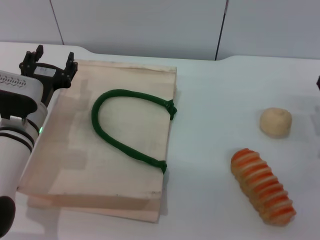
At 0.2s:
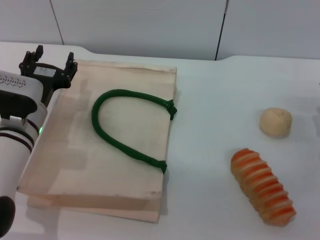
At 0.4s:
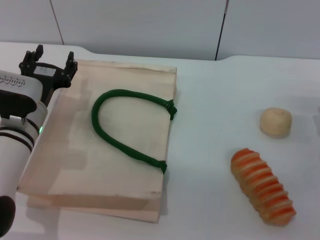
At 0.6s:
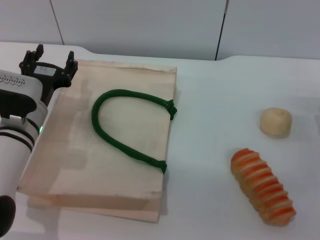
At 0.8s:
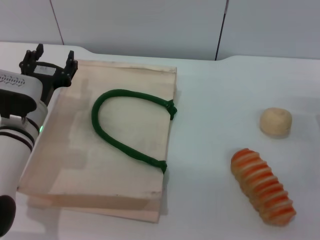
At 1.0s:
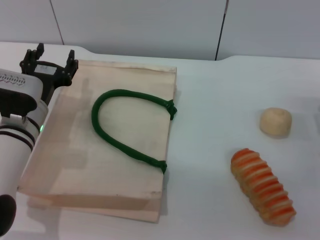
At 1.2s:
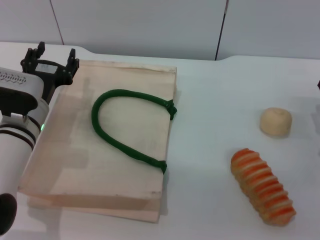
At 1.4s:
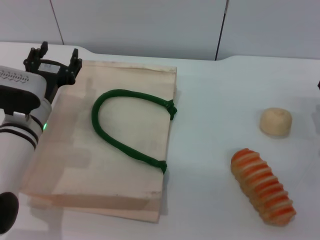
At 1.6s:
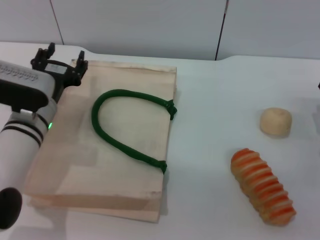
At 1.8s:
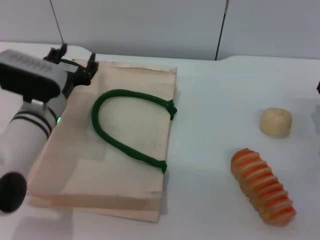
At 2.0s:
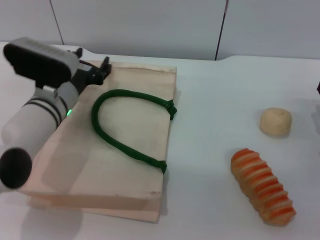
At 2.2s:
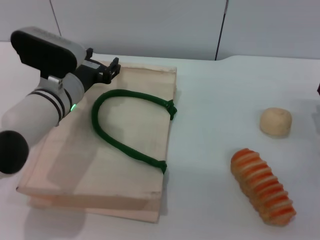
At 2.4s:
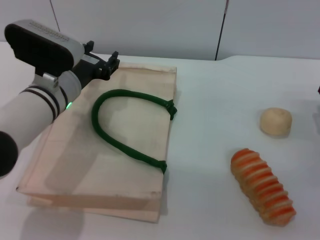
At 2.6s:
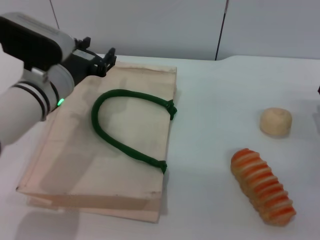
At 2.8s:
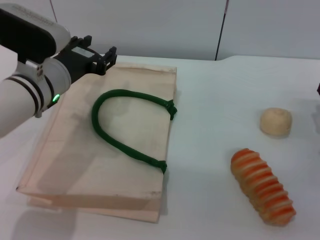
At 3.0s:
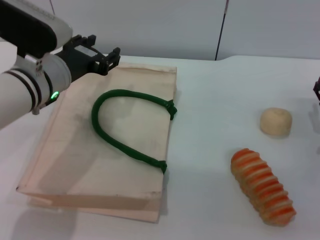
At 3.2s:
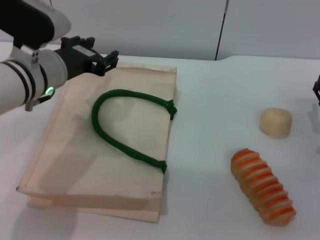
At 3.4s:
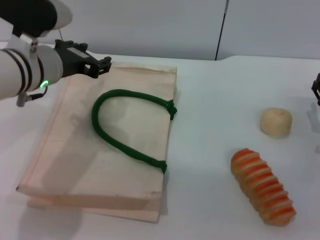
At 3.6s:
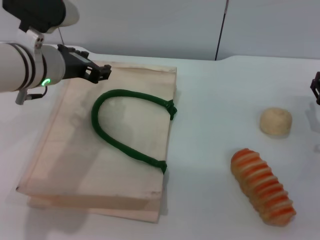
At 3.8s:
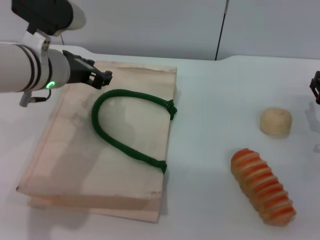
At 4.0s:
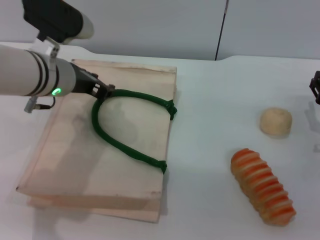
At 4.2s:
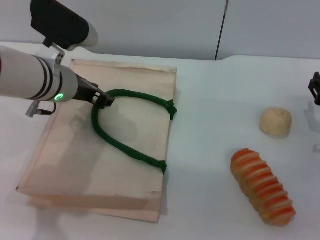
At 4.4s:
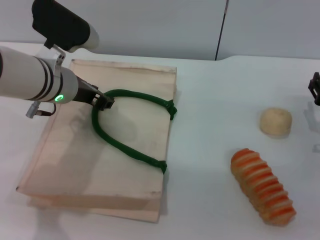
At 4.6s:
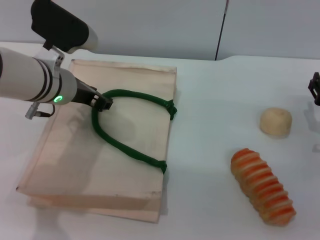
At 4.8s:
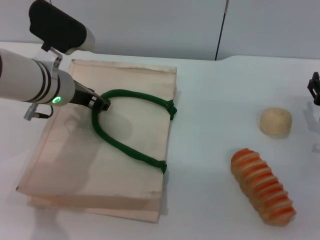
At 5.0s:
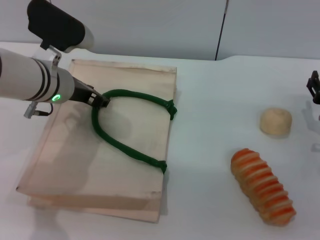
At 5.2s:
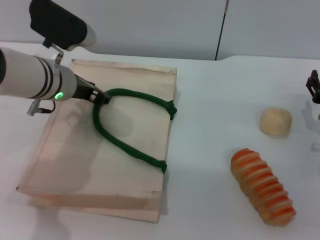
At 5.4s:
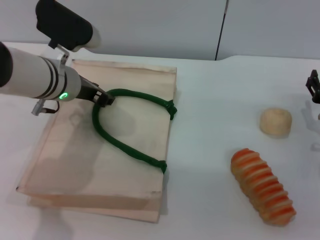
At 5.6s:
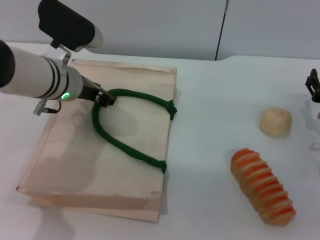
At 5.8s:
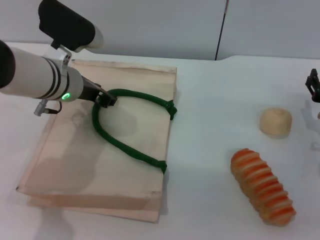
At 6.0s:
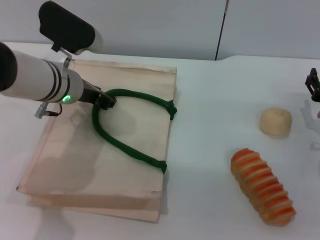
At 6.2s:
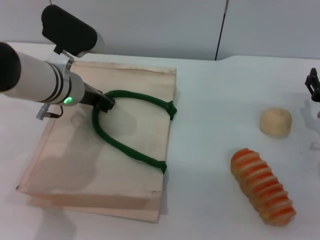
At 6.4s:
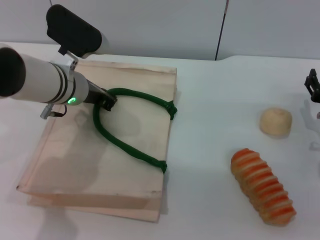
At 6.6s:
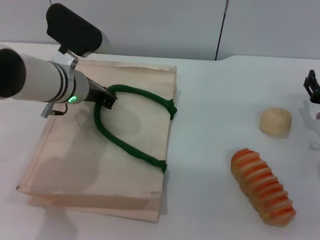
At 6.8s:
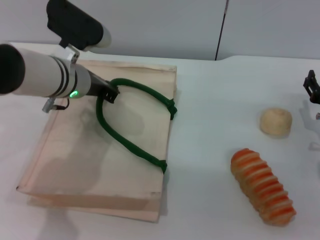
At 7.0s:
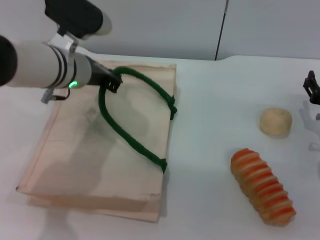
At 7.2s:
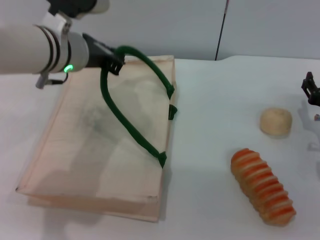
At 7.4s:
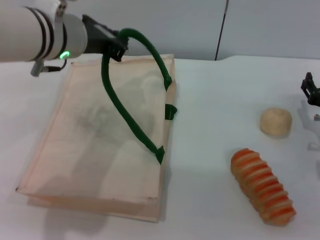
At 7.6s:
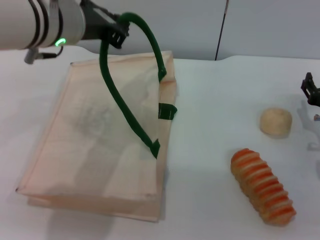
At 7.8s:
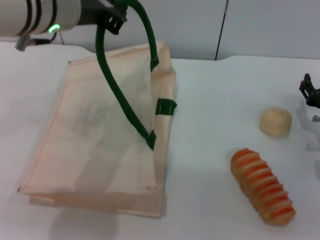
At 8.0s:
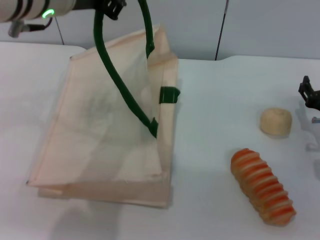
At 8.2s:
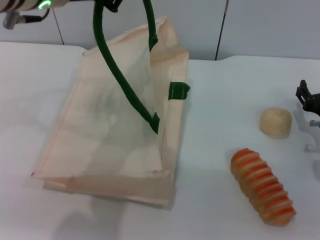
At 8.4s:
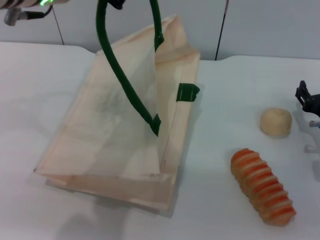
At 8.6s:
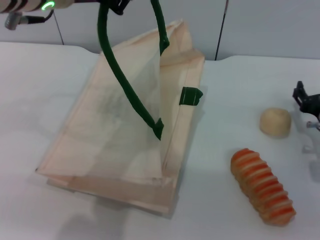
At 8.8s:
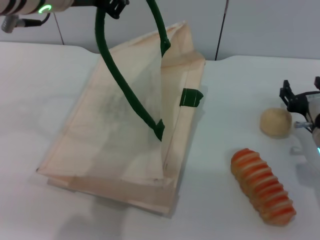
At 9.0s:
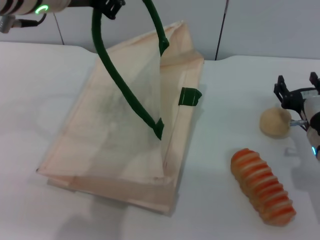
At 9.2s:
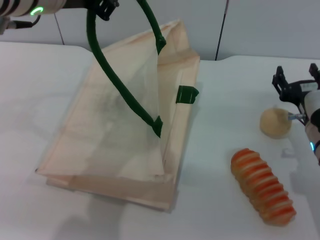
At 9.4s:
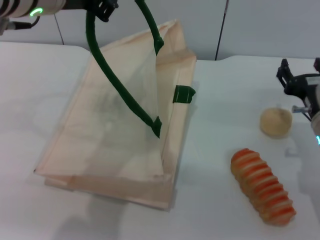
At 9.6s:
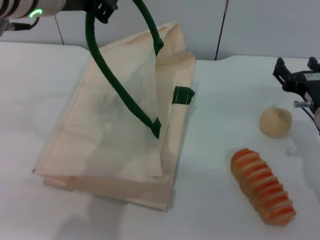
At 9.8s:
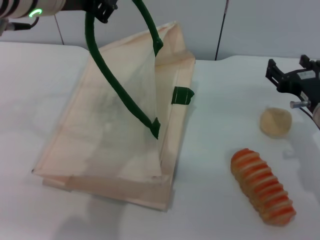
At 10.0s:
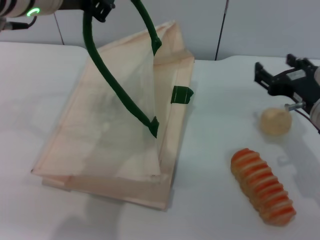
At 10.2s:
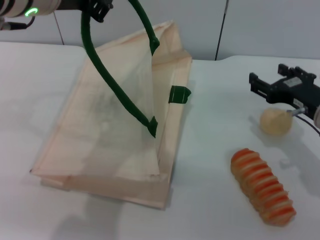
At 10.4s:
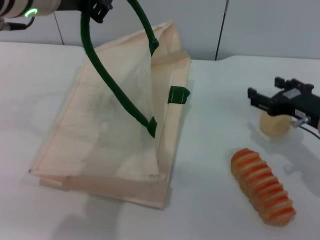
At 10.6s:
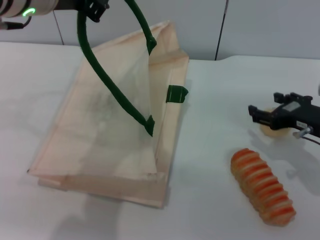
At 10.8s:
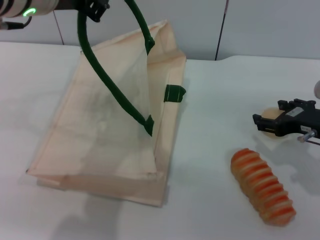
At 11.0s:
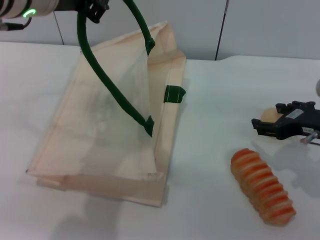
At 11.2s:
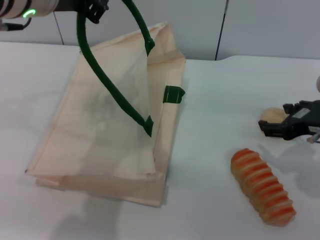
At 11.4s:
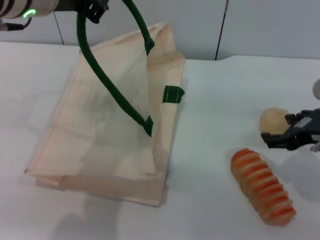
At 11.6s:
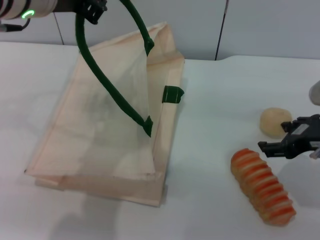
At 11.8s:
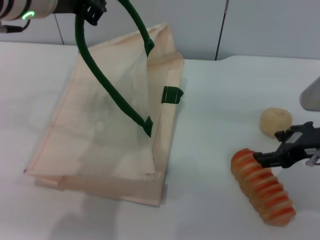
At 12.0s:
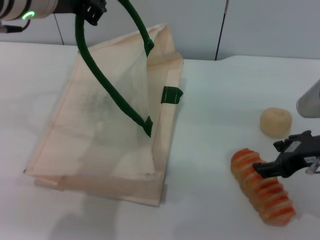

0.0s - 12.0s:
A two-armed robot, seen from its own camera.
Task of the whole recording: pick up the bread and egg yolk pastry from the table and place it in the white handbag.
Step, 0.0s - 8.4s: Lift the woven bag with the left gripper to open it.
0.0s - 1.6s: The grippers stay close to where they were, moving slightly.
1.6s - 3.0s: The left gripper goes some 10 cm upward.
4.4s - 6.0s: The grippers move only a little.
6.0s - 7.6s: The left gripper goes roughly 10 cm upward, and closes its fingers.
7.6s - 9.0s: The left gripper moves upward, approximately 5 cm.
9.0s - 10.4s: The right gripper goes about 5 cm upward.
10.4s - 12.0s: The right gripper shifts by some 5 cm.

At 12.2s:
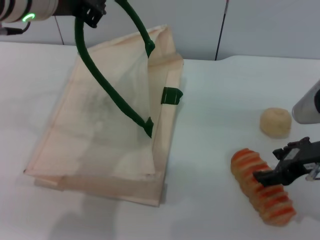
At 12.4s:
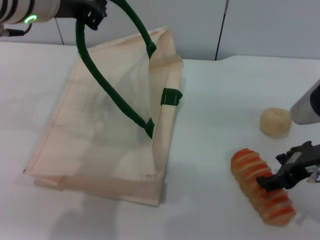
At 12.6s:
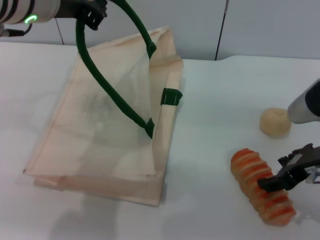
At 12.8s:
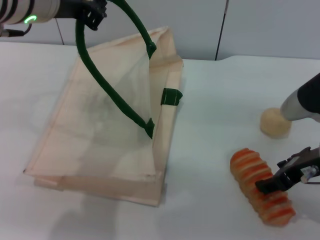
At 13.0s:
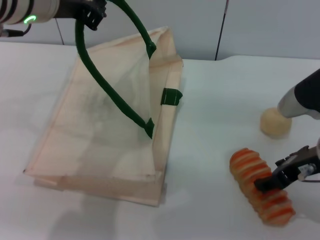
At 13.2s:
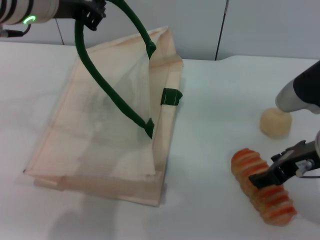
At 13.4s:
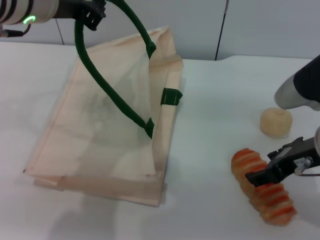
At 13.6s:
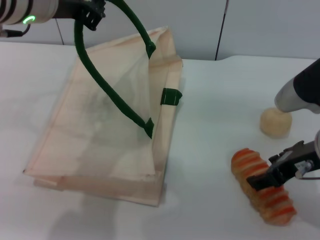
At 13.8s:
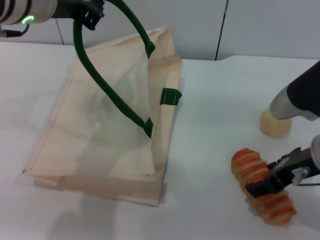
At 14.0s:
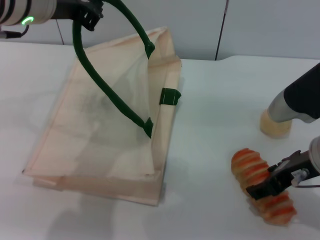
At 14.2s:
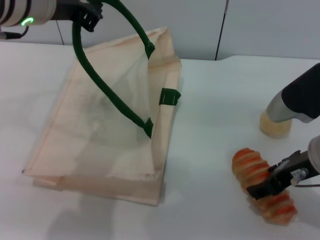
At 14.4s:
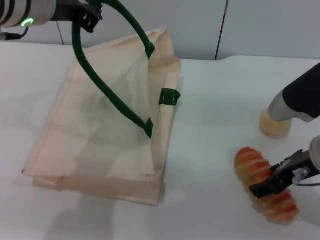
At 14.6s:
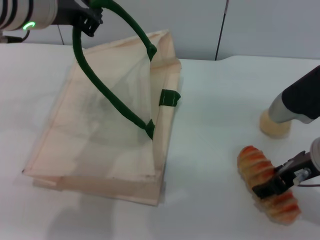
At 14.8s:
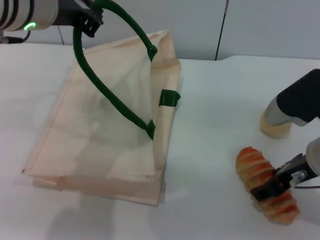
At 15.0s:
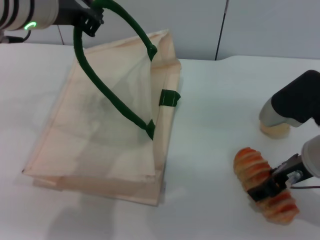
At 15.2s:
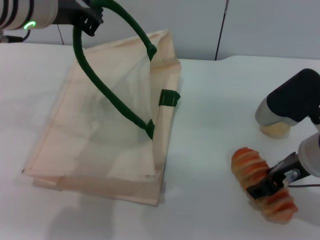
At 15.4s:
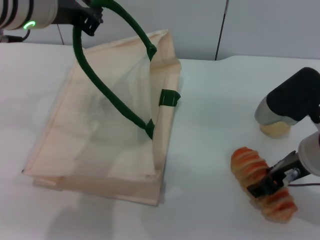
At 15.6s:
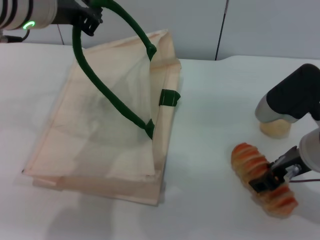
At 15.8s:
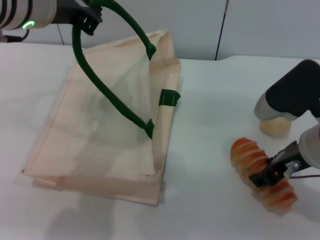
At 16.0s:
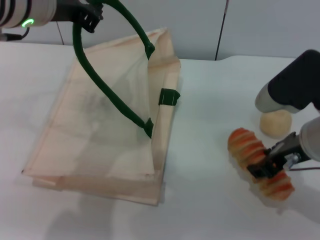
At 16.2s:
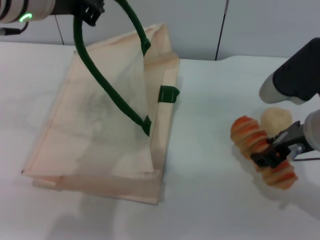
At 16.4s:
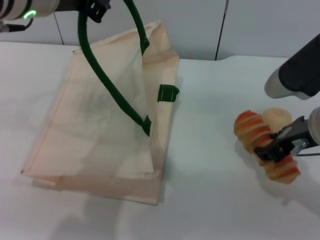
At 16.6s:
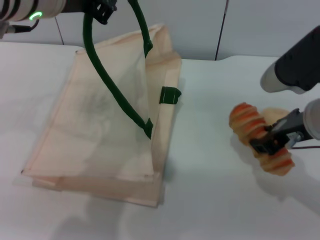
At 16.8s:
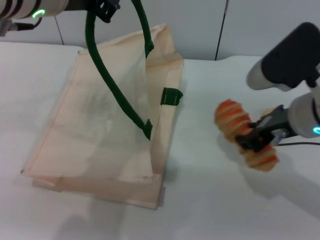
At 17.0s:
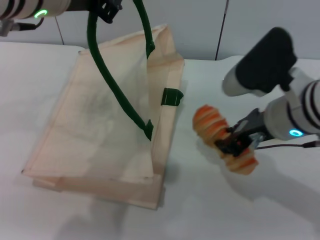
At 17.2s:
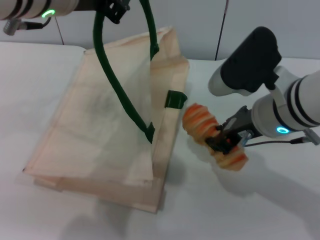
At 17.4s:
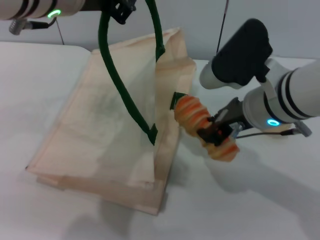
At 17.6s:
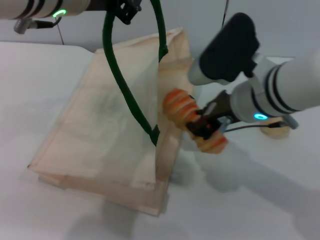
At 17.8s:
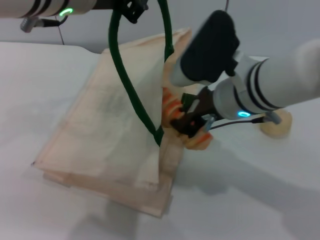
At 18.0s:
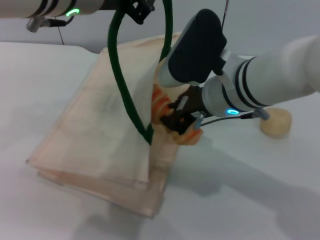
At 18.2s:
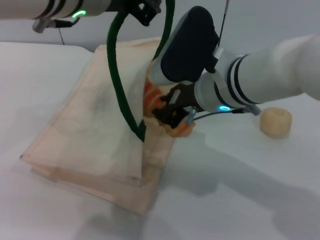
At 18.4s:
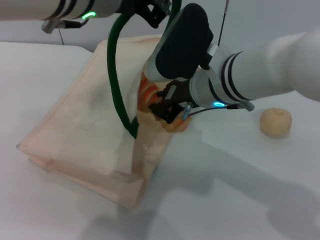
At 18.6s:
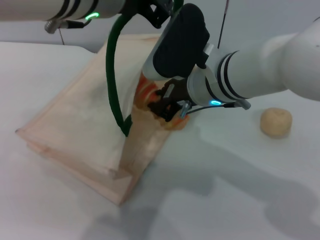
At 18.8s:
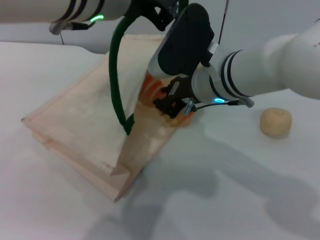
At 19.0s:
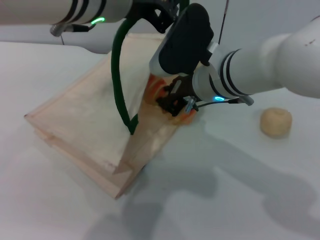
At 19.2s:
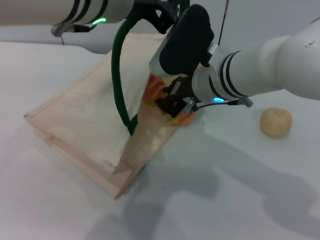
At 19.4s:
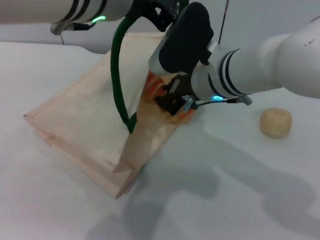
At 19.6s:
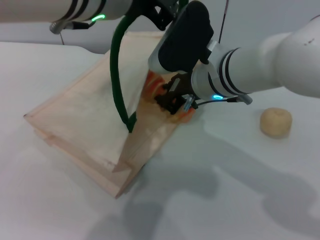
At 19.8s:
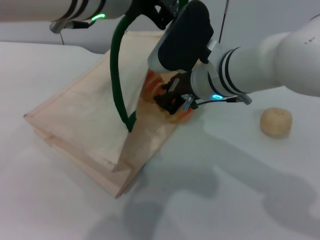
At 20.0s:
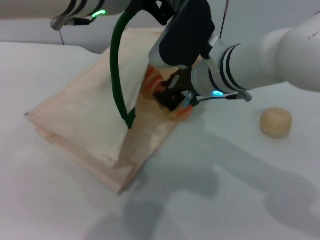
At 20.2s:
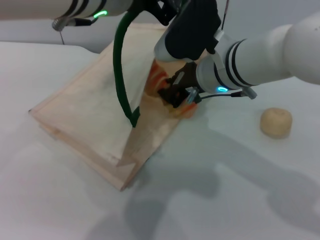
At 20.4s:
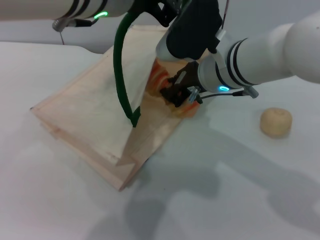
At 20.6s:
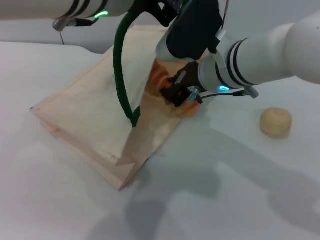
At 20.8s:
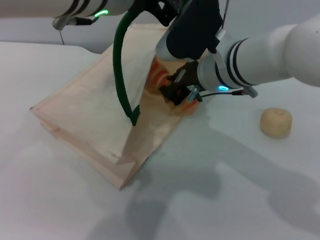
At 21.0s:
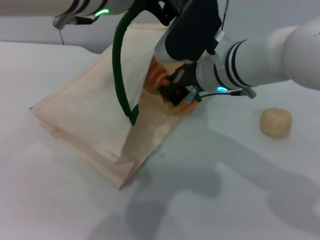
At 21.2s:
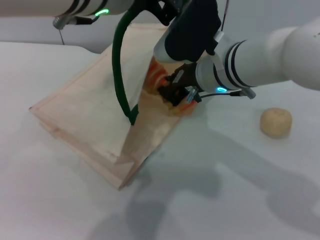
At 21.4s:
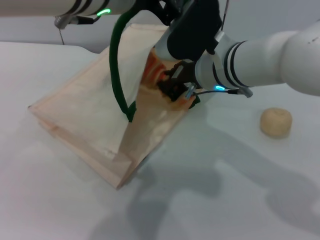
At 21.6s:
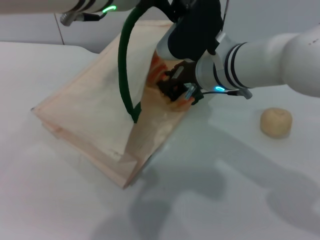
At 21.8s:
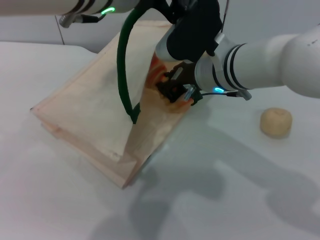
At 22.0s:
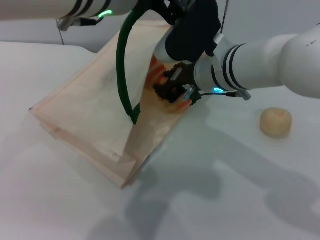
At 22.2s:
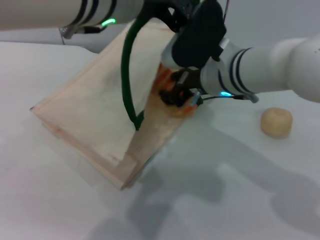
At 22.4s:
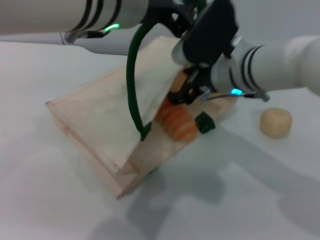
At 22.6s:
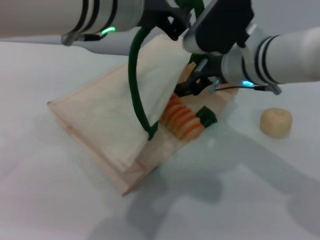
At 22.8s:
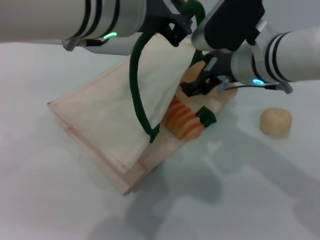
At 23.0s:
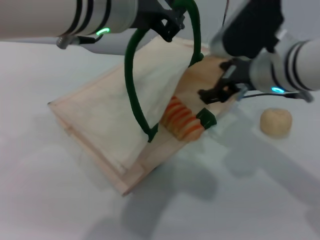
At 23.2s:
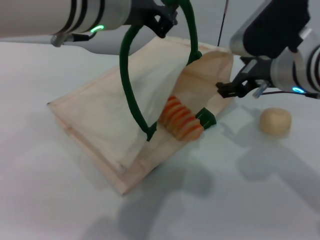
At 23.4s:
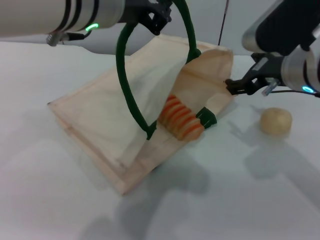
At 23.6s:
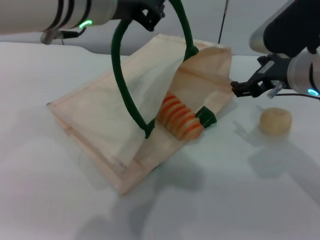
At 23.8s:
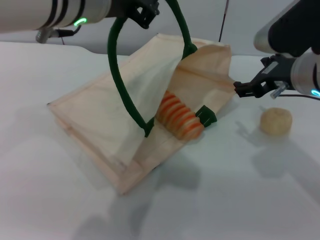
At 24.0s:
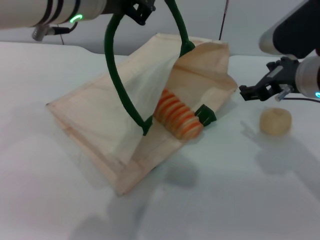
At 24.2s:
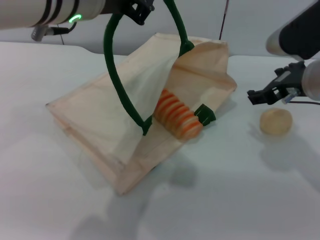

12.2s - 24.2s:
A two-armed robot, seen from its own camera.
Task of the whole recording: pick up the bread and egg yolk pastry from the table and place it in the white handbag.
Step, 12.2s - 16.0s: Pick up the bread with the right gripper.
Step, 16.2s - 22.8s: Place the bread into the woven bag with the right gripper.
12.2s - 15.2s: The grippers stay close to where they were, moving slightly.
15.2s - 16.6s: The right gripper closes its fingers.
16.6s - 18.2s: The right gripper moves to the left, roughly 15 cm.
18.2s - 21.2s: The grippers make only small movements.
21.2s - 22.6s: The right gripper opens.
22.6s - 24.2s: The right gripper travels to the right by some 10 cm.
